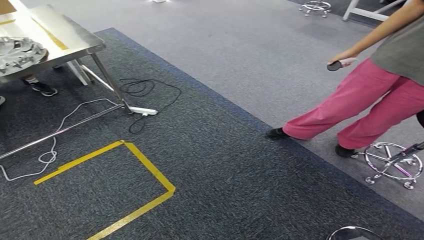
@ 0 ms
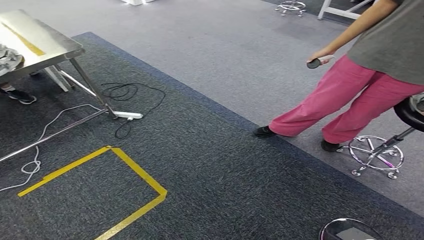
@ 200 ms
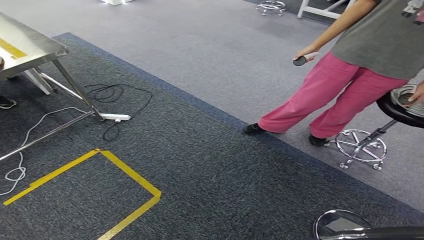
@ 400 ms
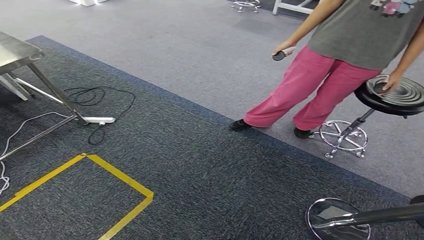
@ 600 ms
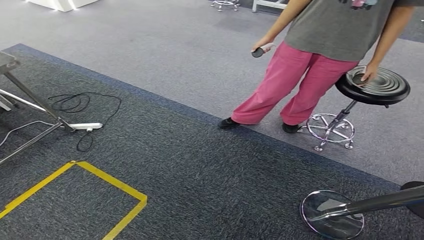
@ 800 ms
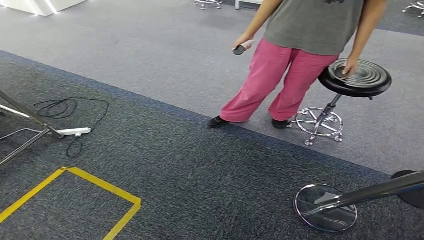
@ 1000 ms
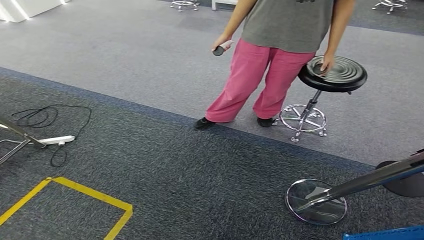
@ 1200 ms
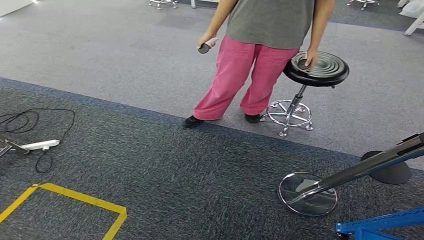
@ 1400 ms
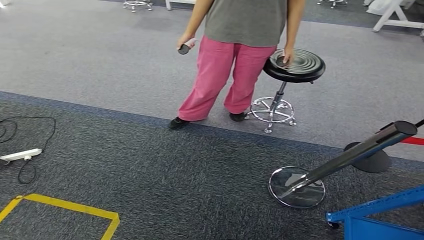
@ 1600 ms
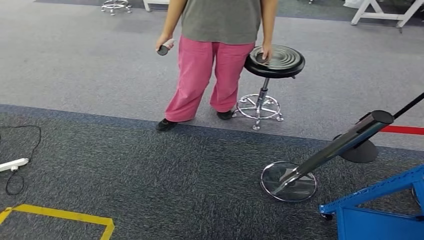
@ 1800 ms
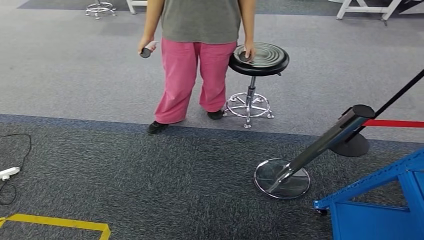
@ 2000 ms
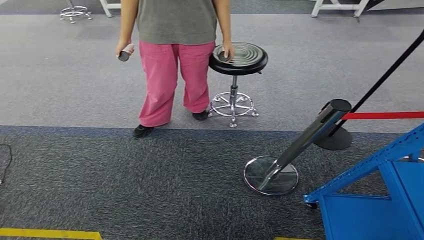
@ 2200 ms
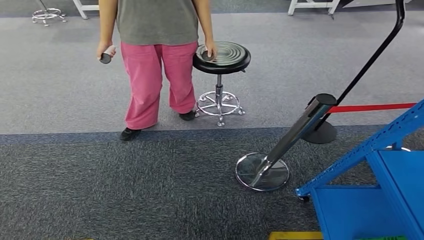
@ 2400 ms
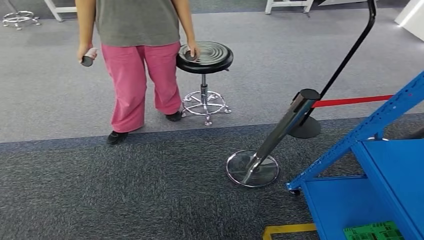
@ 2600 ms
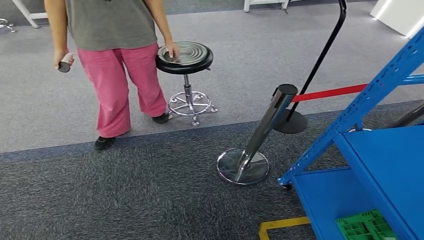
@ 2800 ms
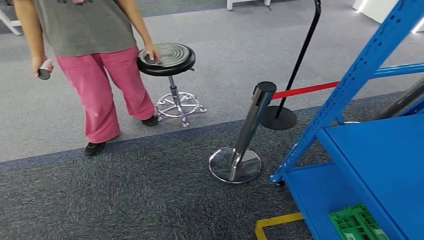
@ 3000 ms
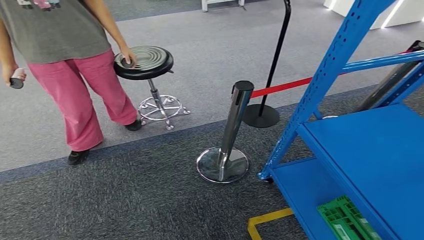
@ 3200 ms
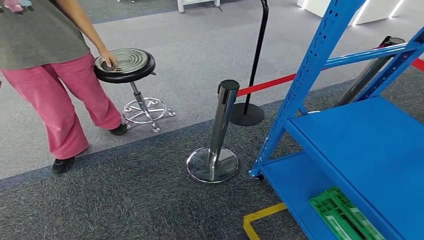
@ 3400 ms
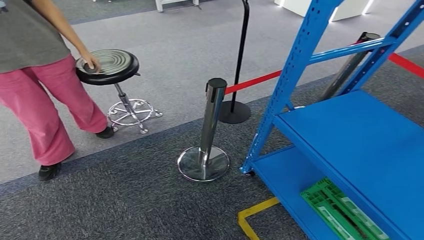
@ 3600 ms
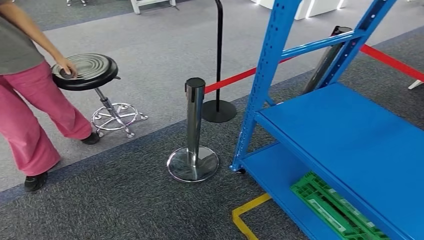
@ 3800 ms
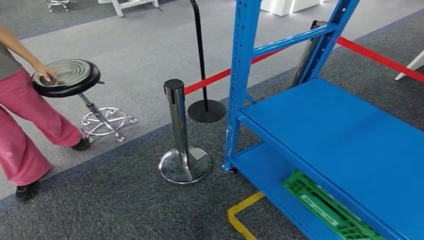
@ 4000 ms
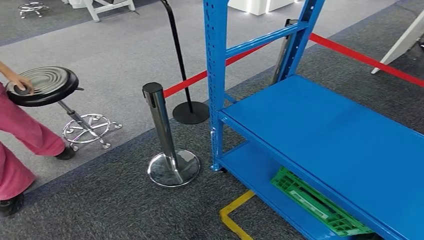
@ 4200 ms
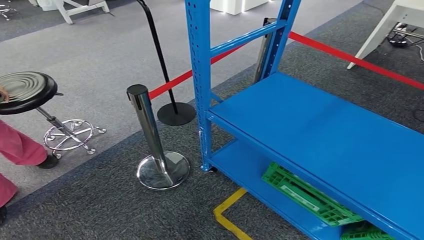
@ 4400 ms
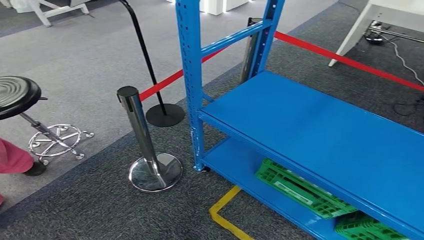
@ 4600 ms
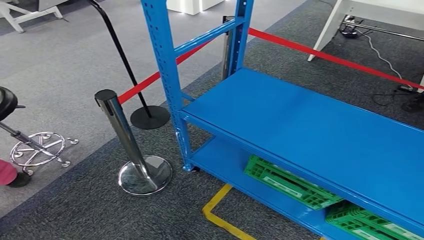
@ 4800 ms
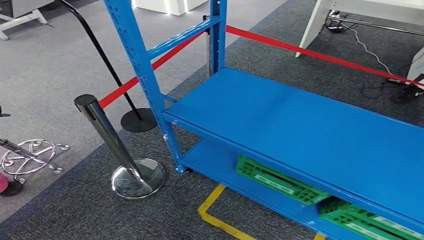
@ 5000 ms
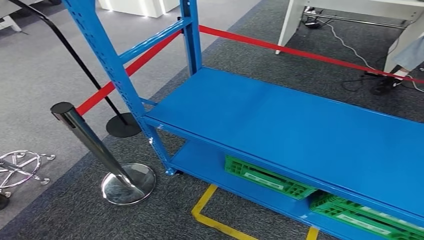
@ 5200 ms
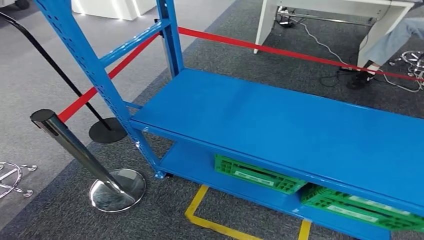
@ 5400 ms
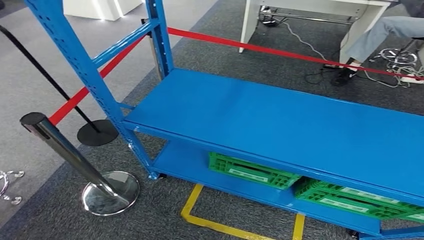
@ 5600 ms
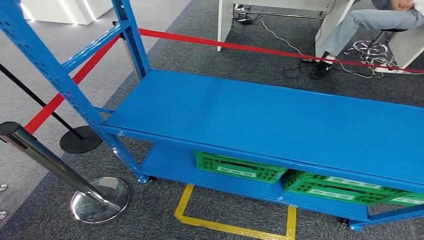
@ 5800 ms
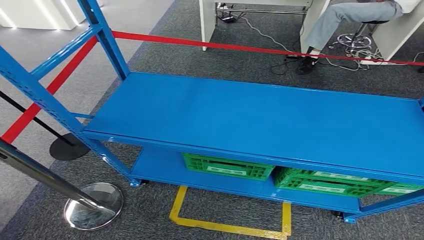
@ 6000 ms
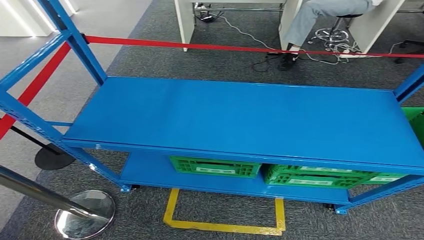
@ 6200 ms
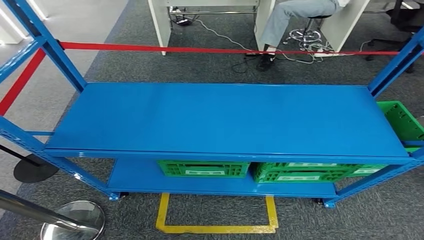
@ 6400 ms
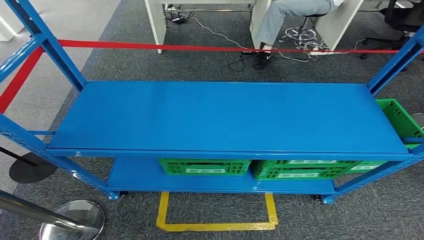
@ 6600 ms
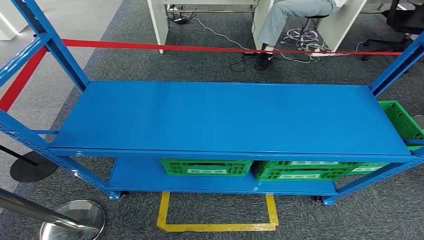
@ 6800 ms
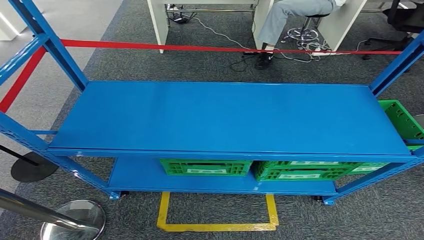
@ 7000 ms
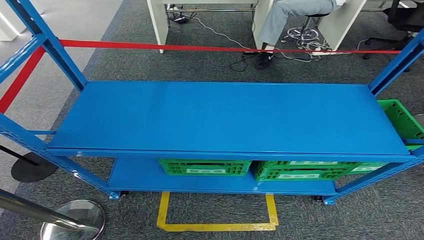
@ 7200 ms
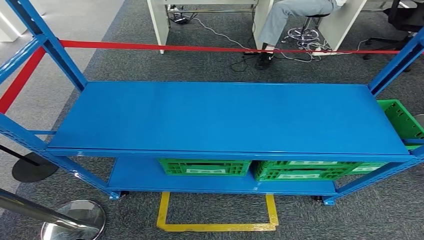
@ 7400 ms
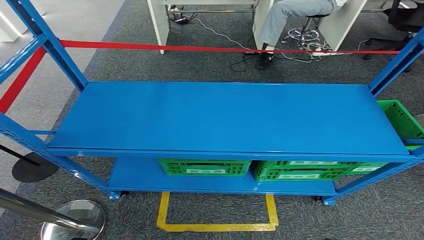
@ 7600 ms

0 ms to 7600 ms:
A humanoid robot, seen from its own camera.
Step, 0 ms to 7600 ms: Return to the initial position at the workbench.
